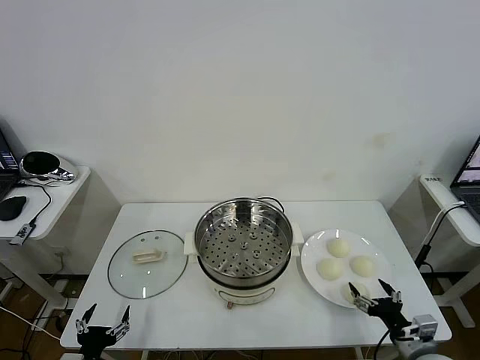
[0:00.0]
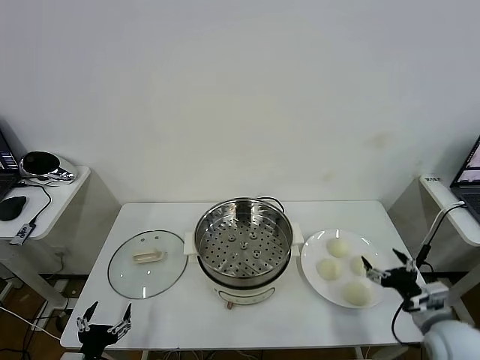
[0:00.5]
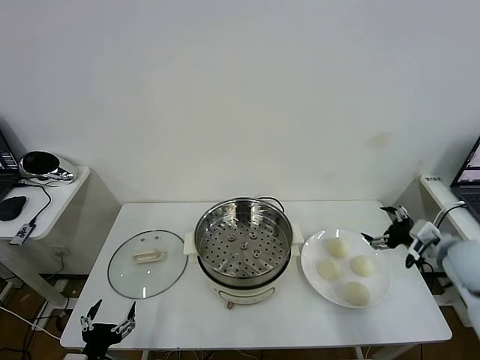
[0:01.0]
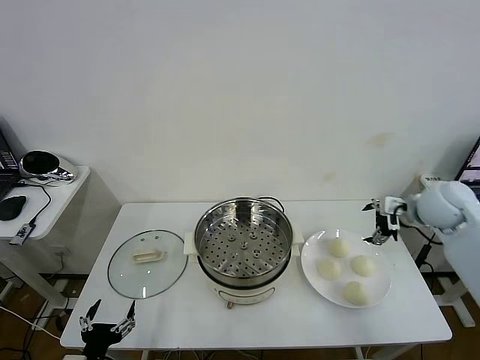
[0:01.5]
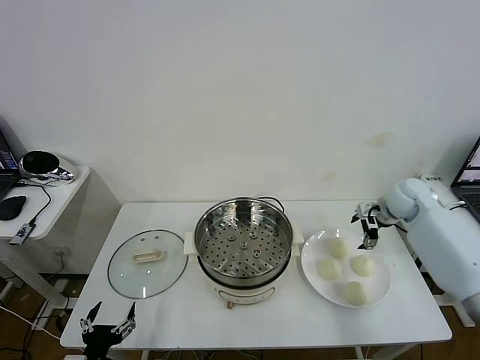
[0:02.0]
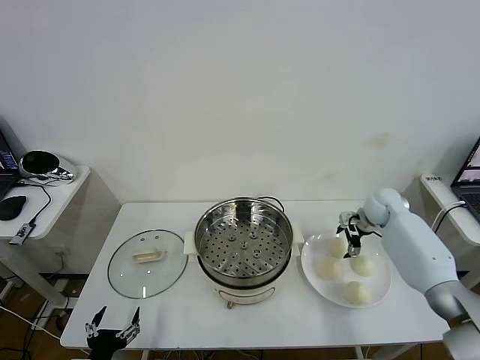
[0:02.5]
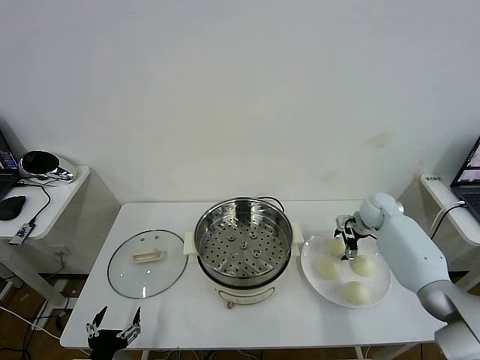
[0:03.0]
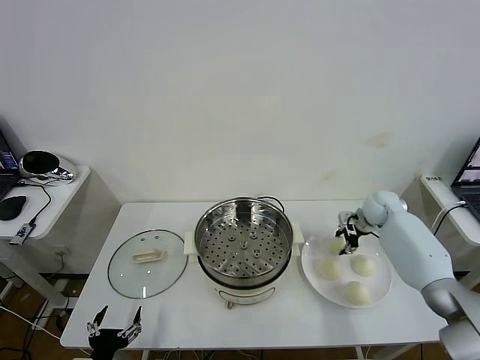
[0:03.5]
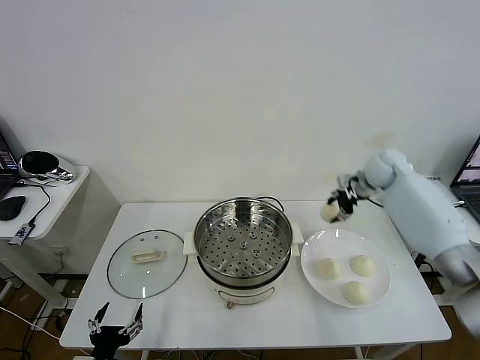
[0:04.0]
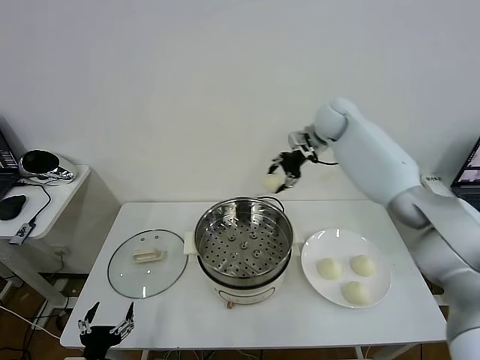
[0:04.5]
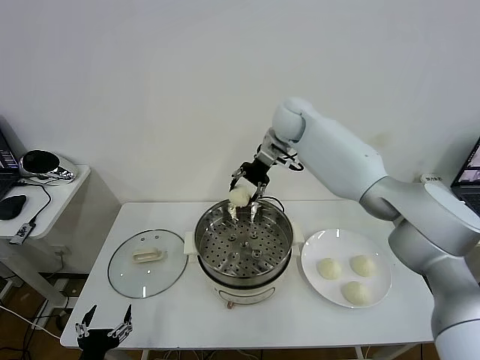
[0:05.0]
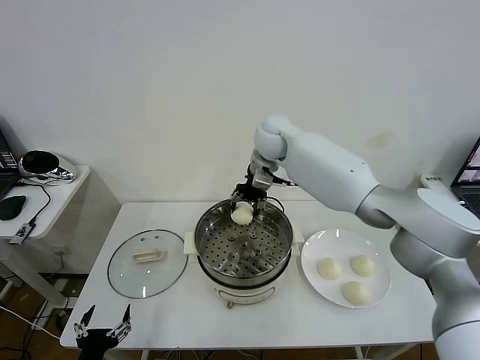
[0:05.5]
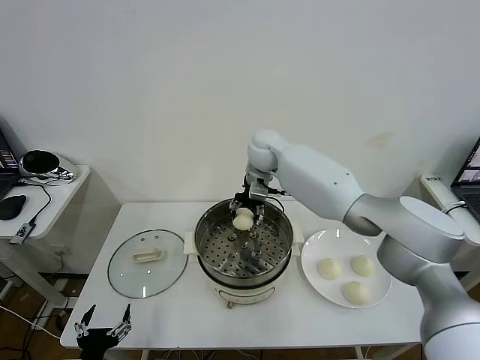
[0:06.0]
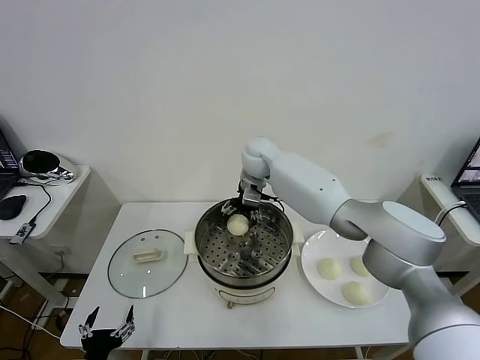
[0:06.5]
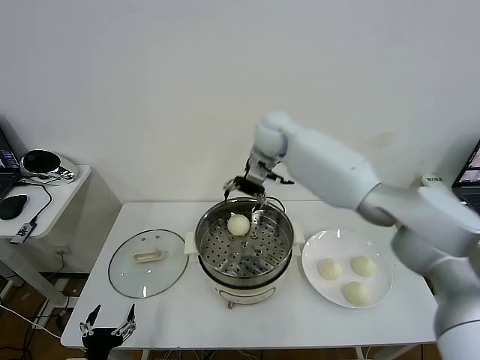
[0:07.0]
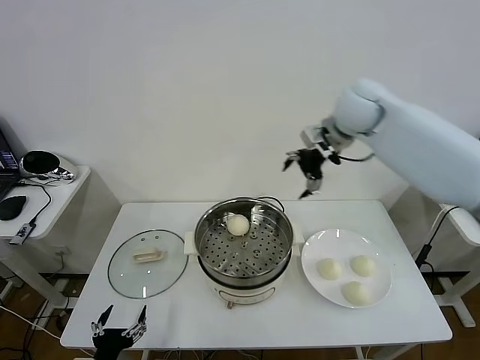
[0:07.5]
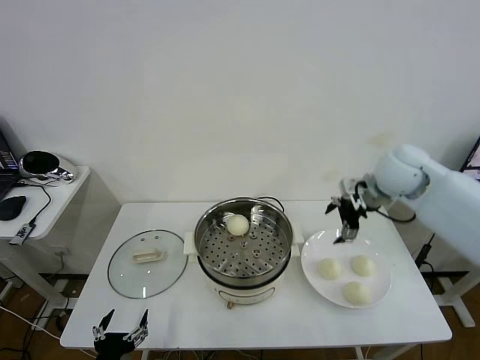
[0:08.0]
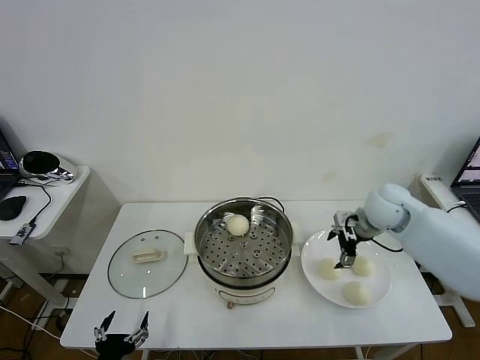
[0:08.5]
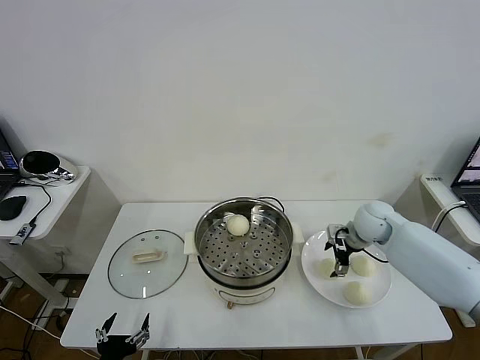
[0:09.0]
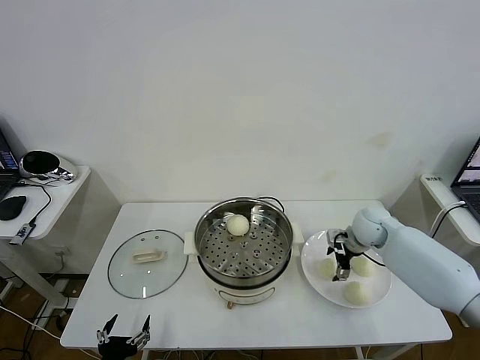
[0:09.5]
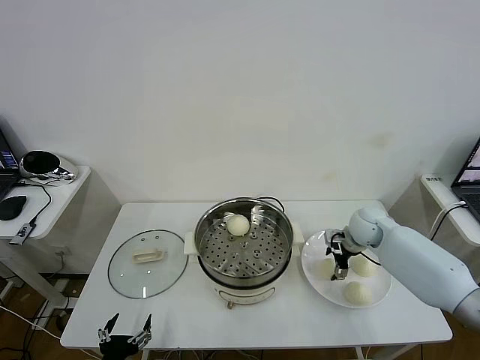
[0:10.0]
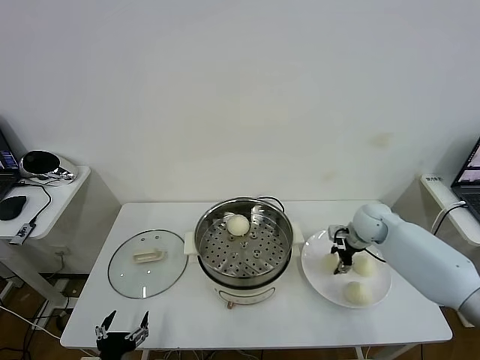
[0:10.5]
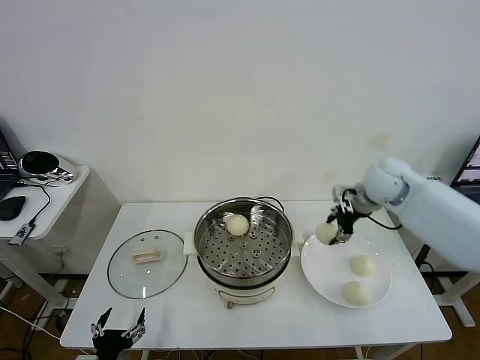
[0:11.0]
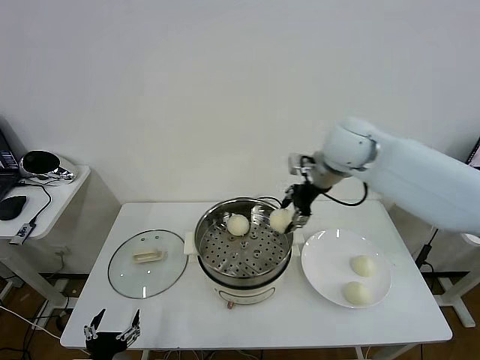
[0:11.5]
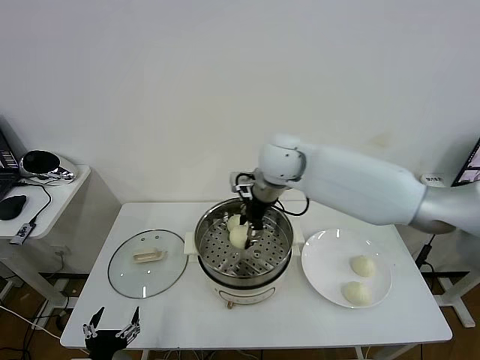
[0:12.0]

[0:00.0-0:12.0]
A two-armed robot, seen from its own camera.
Task of the whole recording: take steamed baozi put them in steamer then cover it.
Step, 0.0 to 3.0 s: Grasp the baozi in the plate with right gripper.
Step, 3.5 to 6.5 s: Place the baozi on the steamer with right gripper.
Step, 7.0 to 10.0 s: Grasp the baozi in the plate with right gripper.
2.0 to 4.0 s: The right gripper is displaced upward, to the left and forward by approximately 15 cm, and closes.
4.0 to 6.0 s: The right gripper goes about 25 cm to the left.
6.0 to 8.0 s: The right gripper heads to the right and backward, covering about 30 cm, and opens its fingers.
8.0 to 10.0 s: The right gripper shifts about 15 cm downward.
10.0 to 12.0 s: The right gripper shifts about 35 cm to the left and upward.

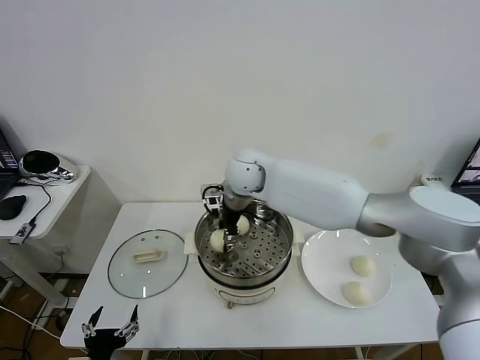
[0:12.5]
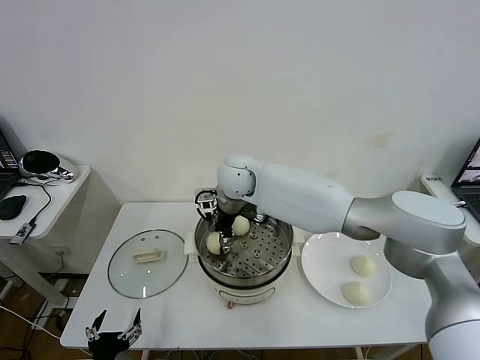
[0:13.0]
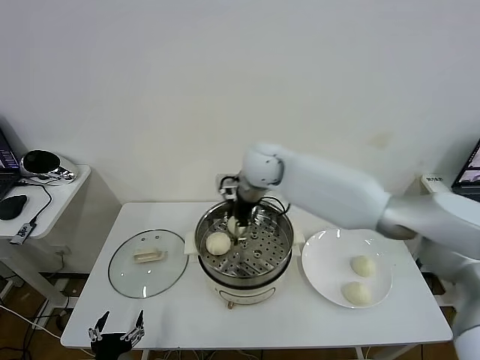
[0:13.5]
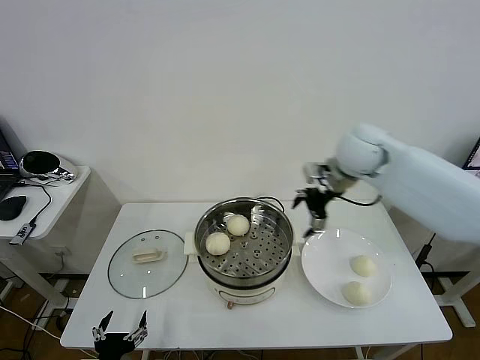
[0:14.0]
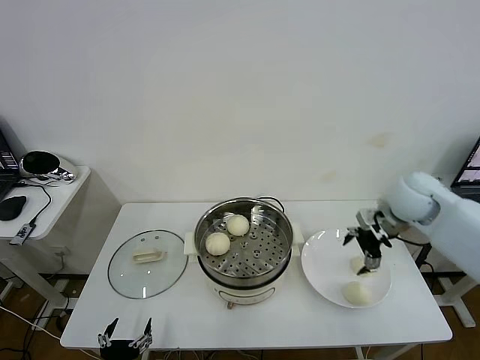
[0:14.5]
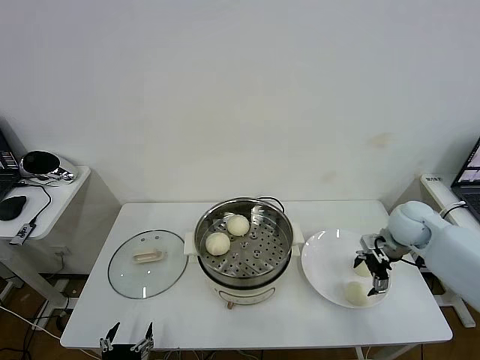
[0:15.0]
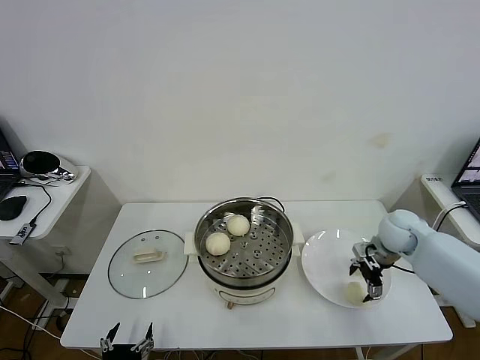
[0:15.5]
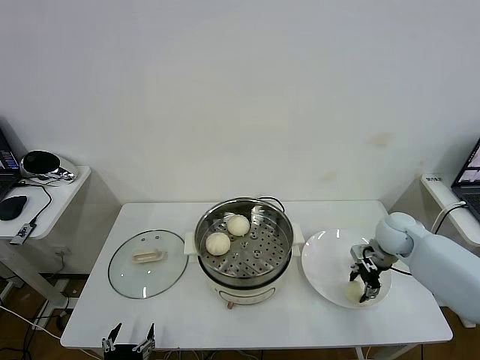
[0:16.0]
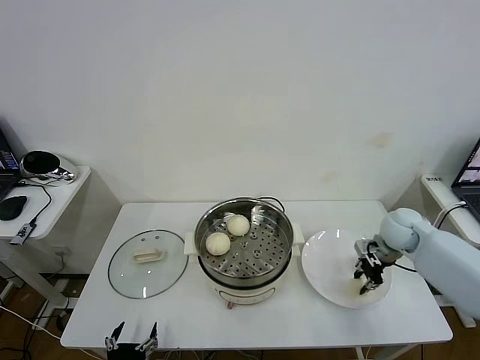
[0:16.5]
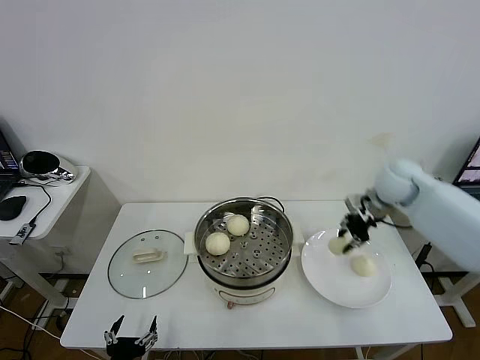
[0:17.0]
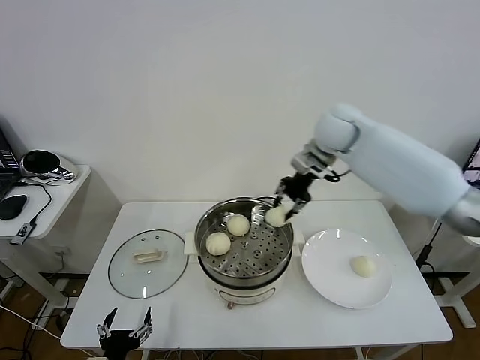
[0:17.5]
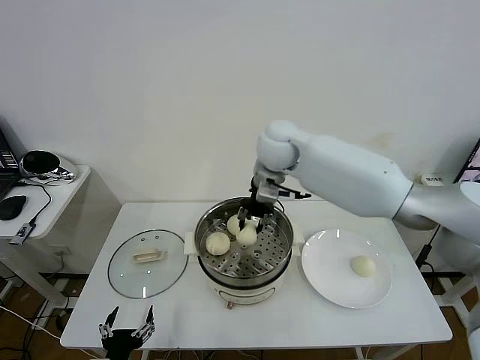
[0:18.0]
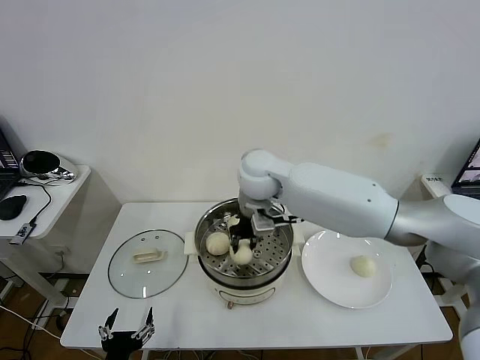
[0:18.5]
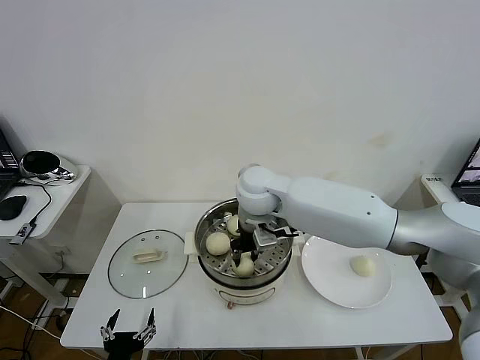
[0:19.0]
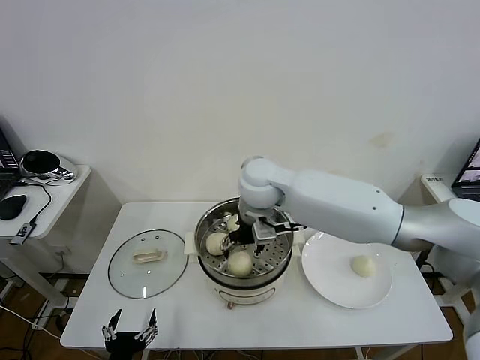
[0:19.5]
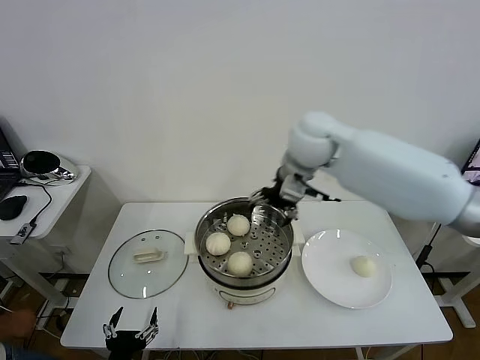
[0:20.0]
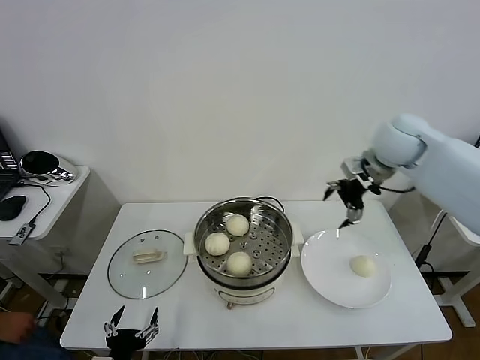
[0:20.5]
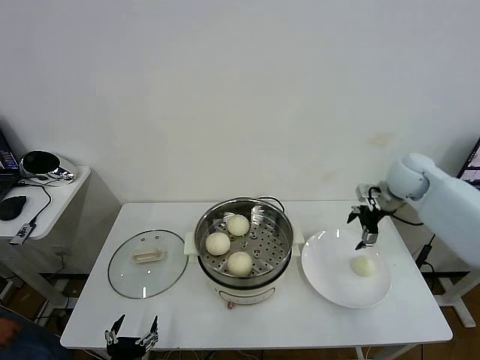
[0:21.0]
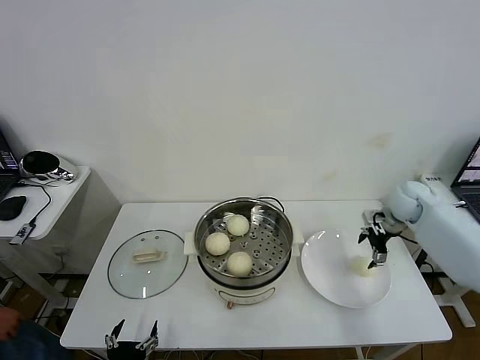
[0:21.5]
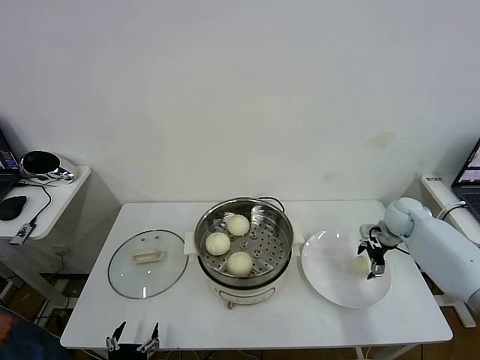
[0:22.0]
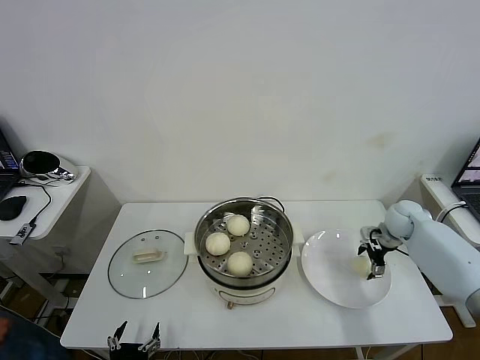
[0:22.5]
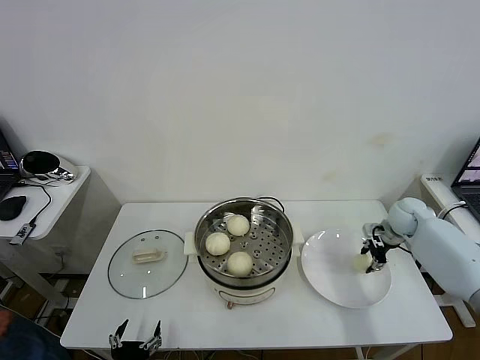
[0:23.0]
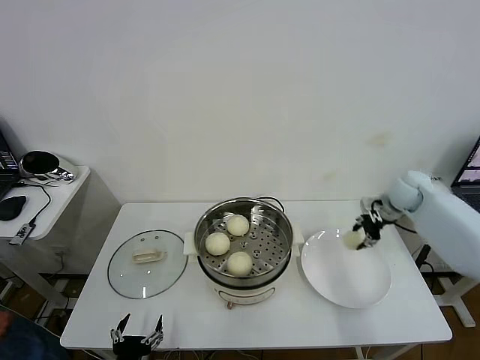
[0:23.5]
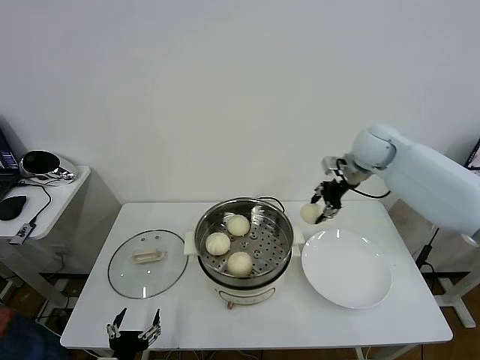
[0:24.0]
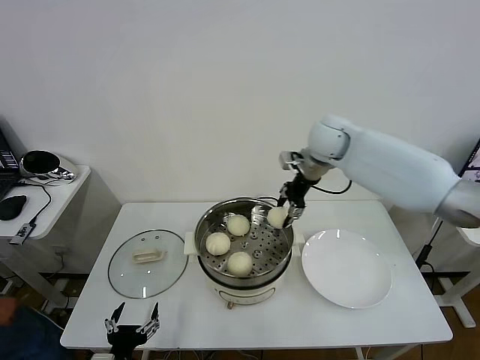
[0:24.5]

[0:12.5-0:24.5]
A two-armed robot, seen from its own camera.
Task of the whole recording: take steamed baozi put them in steamer then cover it.
Step, 13.5 to 16.0 s: Grasp the baozi in the plate with right gripper.
Step, 16.5 to 19.0 s: Place the baozi on the steamer with right gripper.
Step, 20.0 to 23.0 s: Grasp the baozi in the plate with right gripper.
12.5 to 14.5 s: The right gripper heads to the right, covering roughly 35 cm, and opens its fingers.
14.5 to 16.5 s: The right gripper moves downward, some 10 cm, and closes.
16.5 to 18.5 s: The right gripper is displaced to the left by about 35 cm.
18.5 to 20.5 s: The right gripper is displaced to the right by approximately 30 cm, and opens.
20.5 to 22.5 s: The right gripper moves downward and to the right, approximately 25 cm.
22.5 to 24.5 s: The right gripper is displaced to the left and upward by roughly 30 cm, and closes.

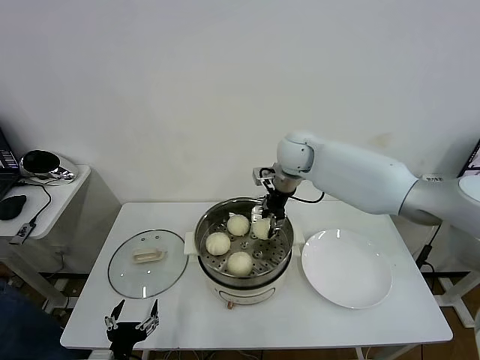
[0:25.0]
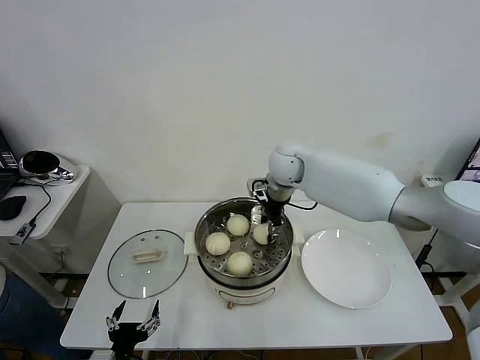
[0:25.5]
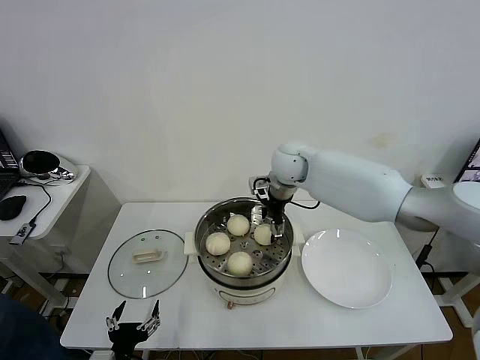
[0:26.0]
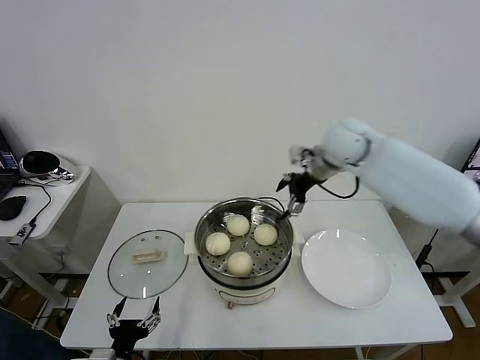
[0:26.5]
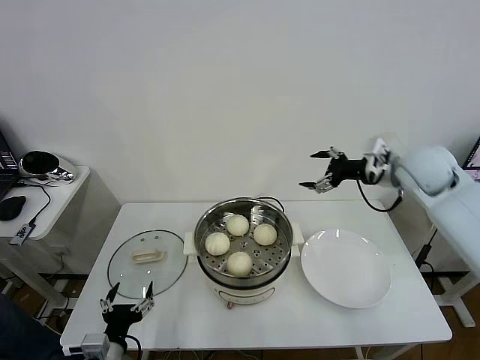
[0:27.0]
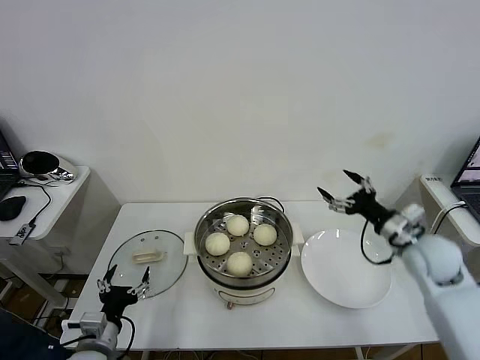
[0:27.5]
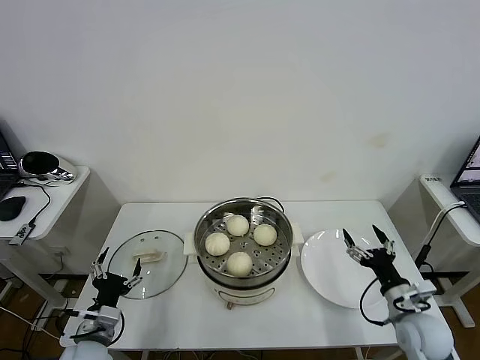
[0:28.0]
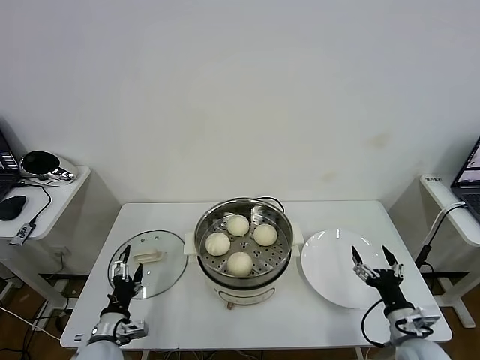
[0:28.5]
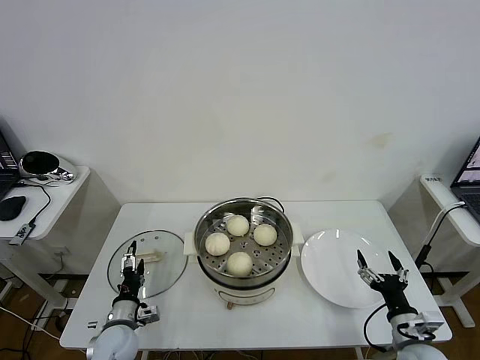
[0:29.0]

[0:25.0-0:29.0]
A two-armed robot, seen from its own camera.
Task of the whole recording: take steamed baozi put them in steamer then cover it.
25.0 to 27.0 s: The right gripper goes roughly 25 cm to the right and backward, and opens its fingers.
27.0 to 29.0 s: The left gripper goes some 15 cm forward and downward. The right gripper goes some 40 cm downward and backward.
